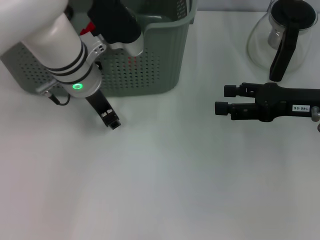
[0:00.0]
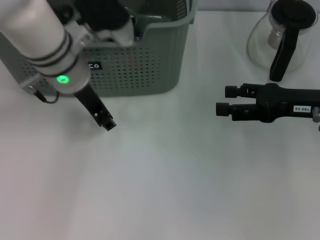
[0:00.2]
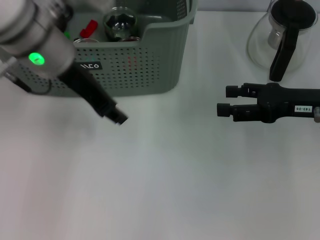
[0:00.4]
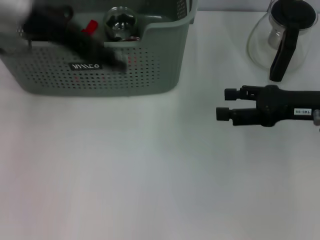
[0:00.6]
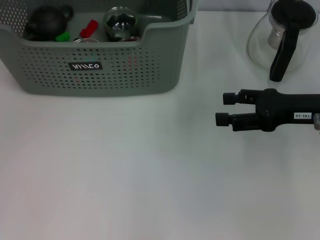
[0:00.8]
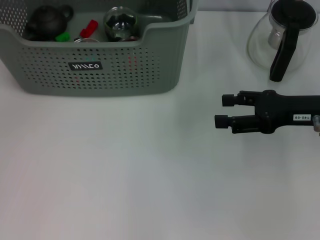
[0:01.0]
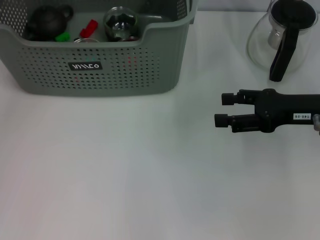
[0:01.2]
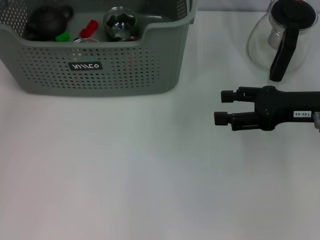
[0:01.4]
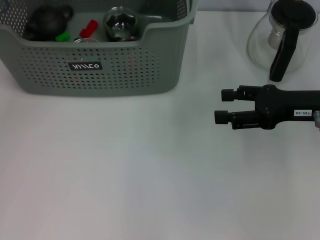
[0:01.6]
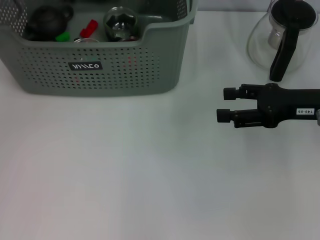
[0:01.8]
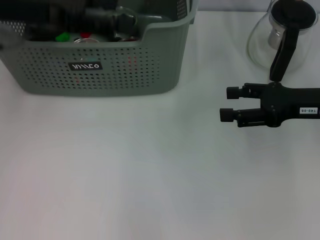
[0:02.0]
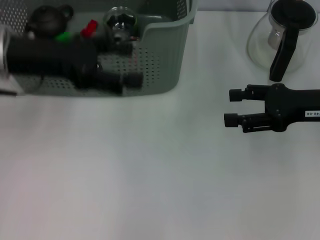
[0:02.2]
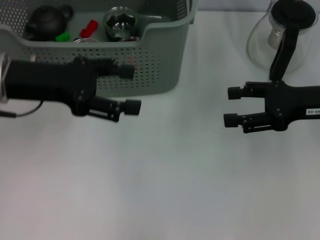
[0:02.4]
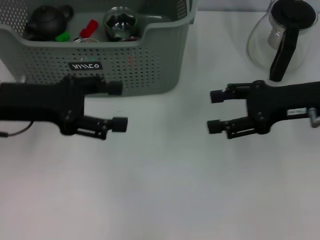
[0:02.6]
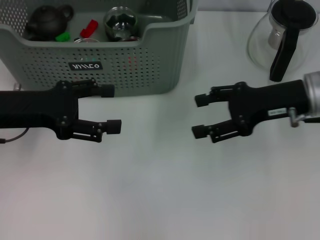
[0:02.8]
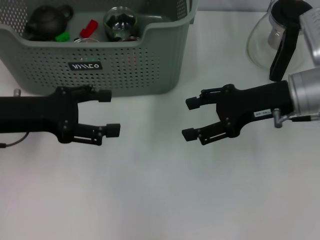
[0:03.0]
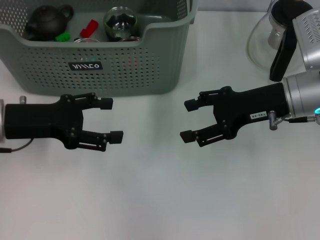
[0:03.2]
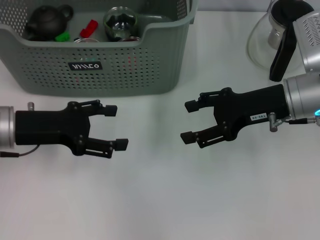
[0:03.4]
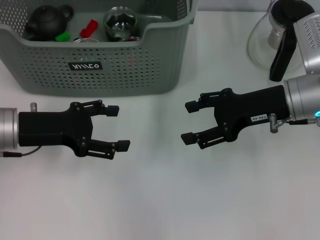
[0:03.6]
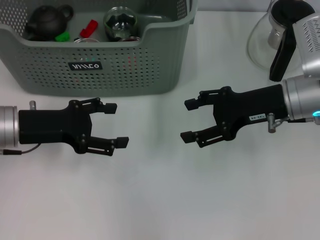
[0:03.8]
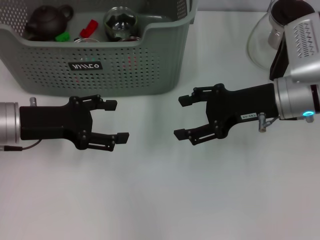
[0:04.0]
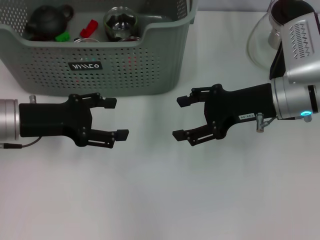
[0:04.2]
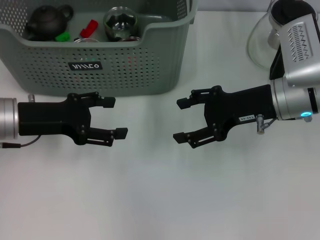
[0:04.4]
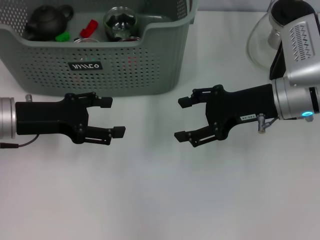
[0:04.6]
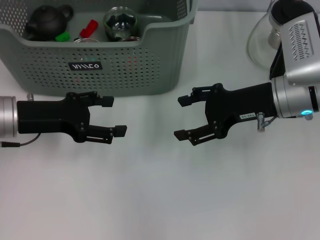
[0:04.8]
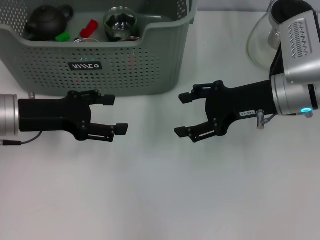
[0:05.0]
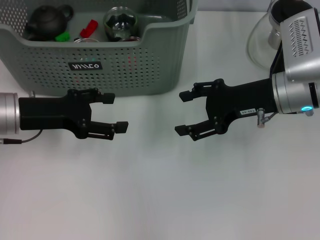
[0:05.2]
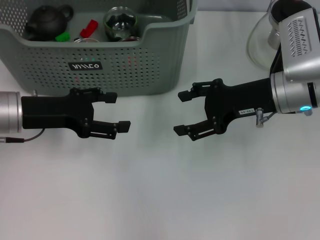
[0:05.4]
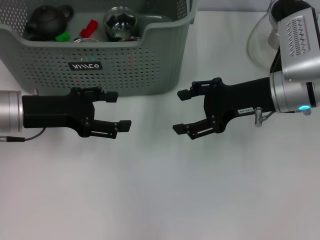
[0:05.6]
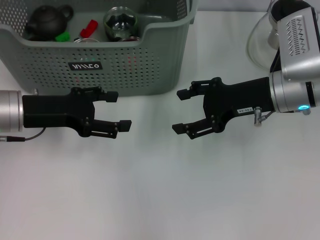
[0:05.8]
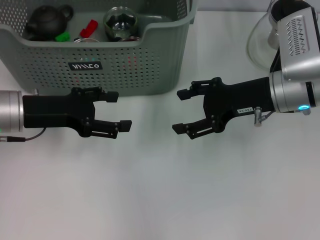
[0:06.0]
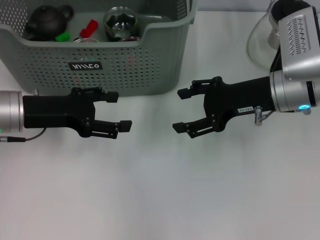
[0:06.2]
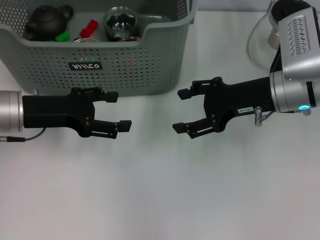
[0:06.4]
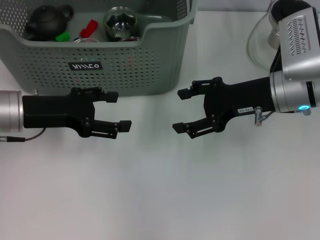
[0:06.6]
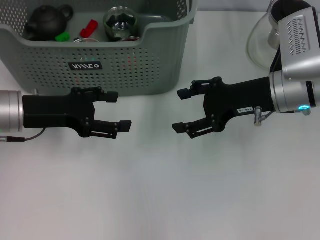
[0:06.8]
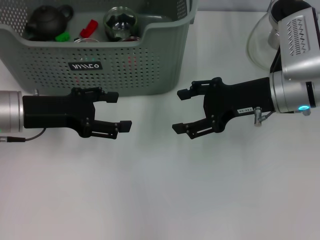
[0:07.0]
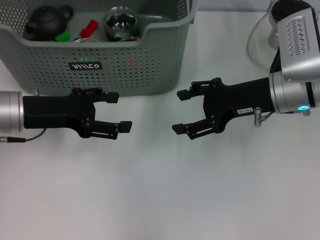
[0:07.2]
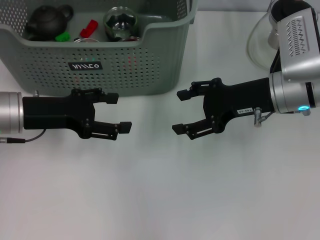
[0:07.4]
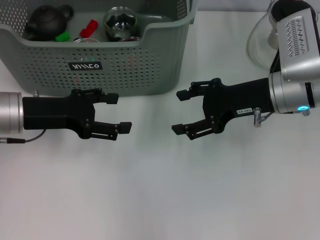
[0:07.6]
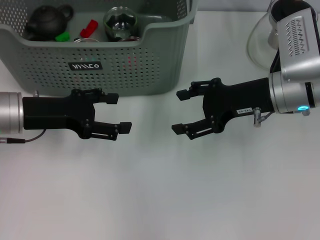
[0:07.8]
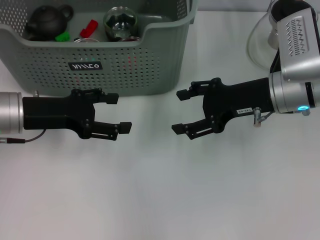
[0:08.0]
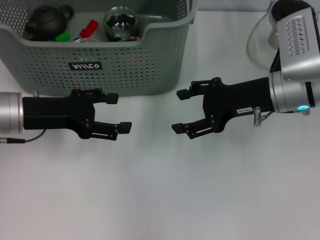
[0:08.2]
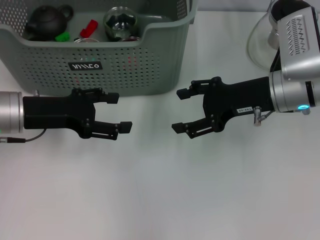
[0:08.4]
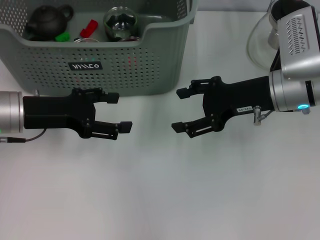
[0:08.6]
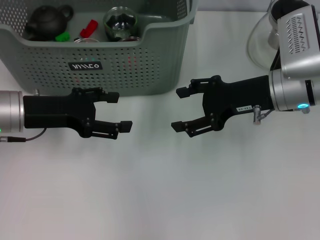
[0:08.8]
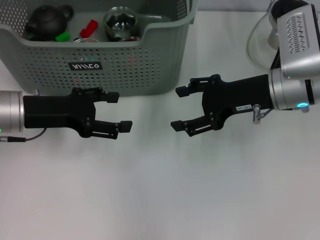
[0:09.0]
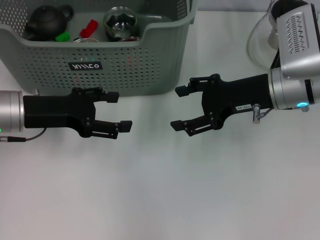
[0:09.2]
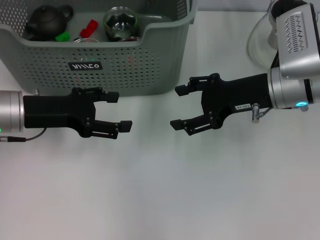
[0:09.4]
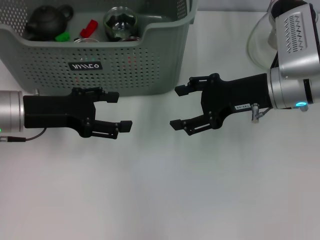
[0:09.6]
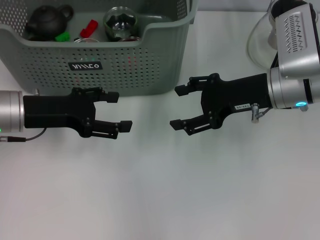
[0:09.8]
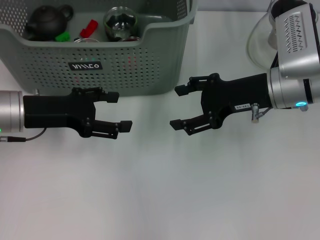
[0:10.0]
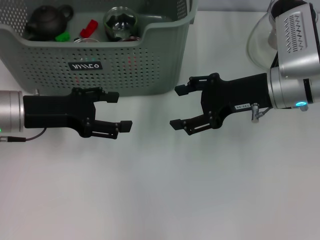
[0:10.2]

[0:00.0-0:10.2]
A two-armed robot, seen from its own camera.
Task of the whole recording: pick up the teacup on the table and place it into the storage bin, pick up the block on the table and place it into the storage bin.
Step, 0:00.0 to 0:01.4: Place the white block in the storage box with left gripper.
0:00.0 to 0:01.4: The left gripper is displaced to the left and upward by some 20 cm.
0:01.4 to 0:03.0: The right gripper goes approximately 5 cm to the left; the left gripper moves backward and downward, some 20 cm, and opens.
0:03.0 to 0:04.4: The grippers move only a little.
0:04.4 to 0:10.2: Both grippers stay put.
